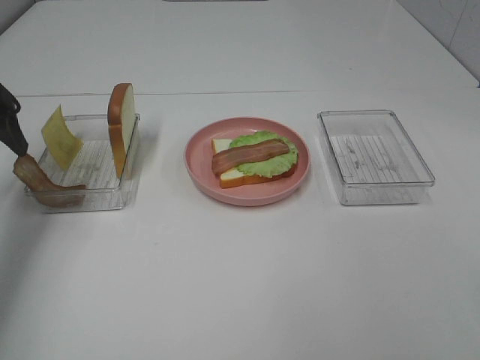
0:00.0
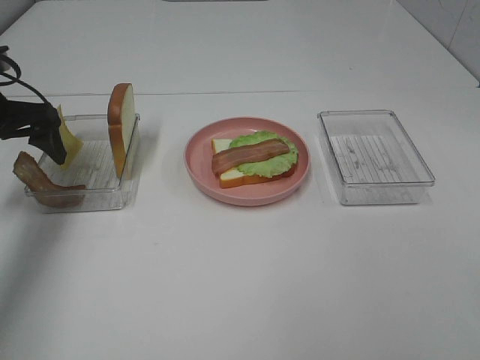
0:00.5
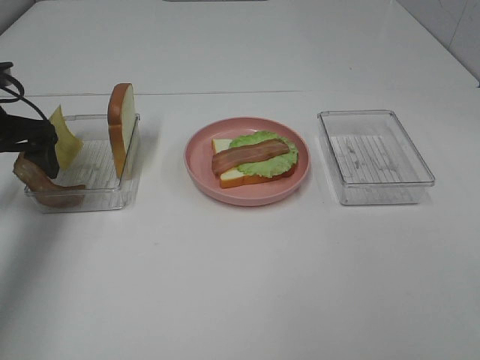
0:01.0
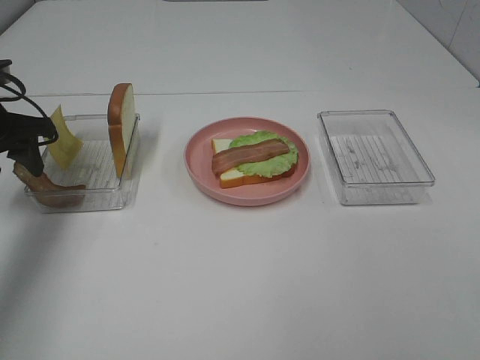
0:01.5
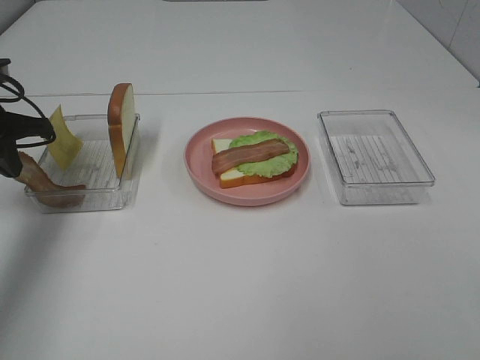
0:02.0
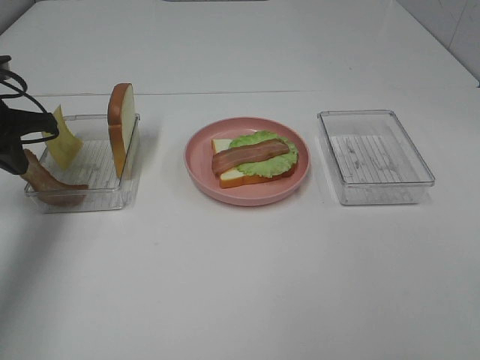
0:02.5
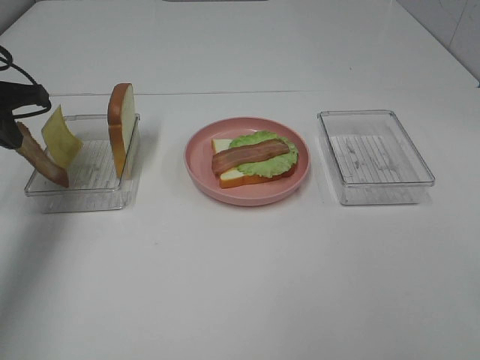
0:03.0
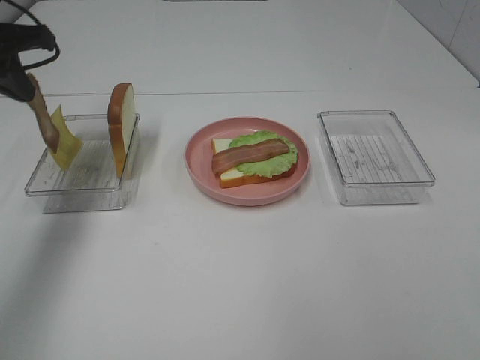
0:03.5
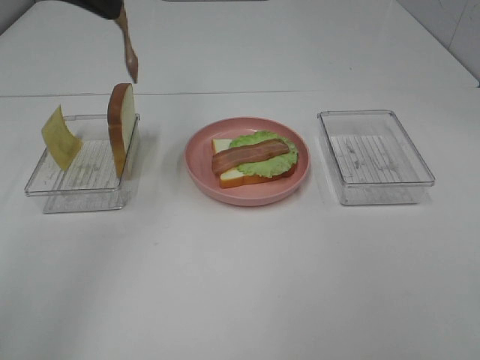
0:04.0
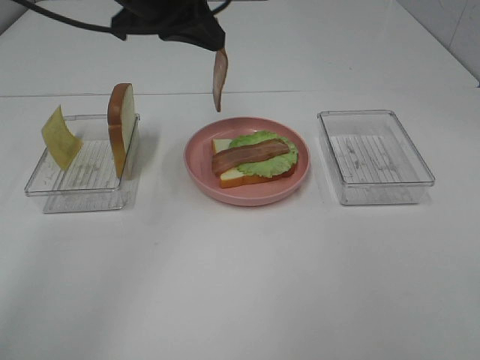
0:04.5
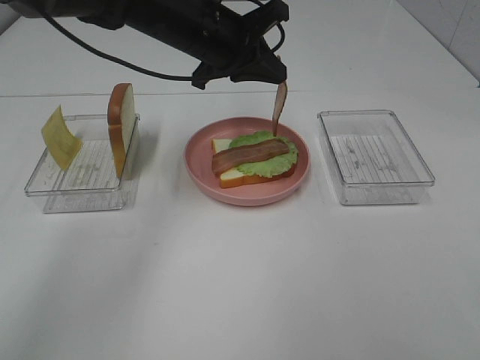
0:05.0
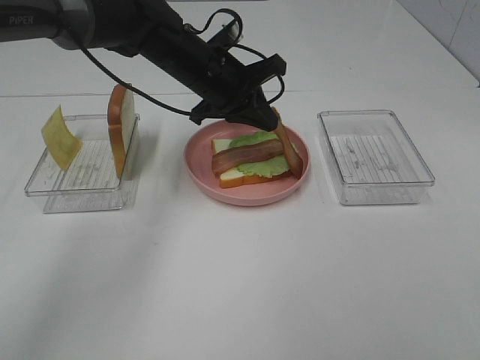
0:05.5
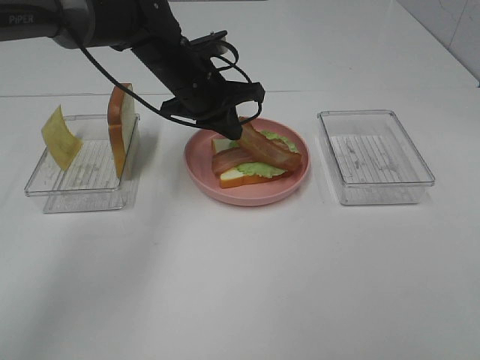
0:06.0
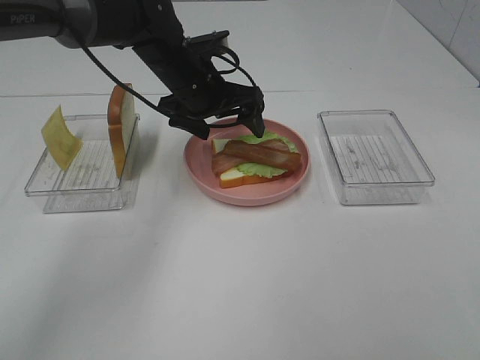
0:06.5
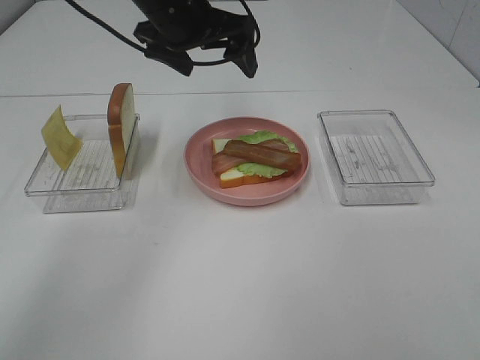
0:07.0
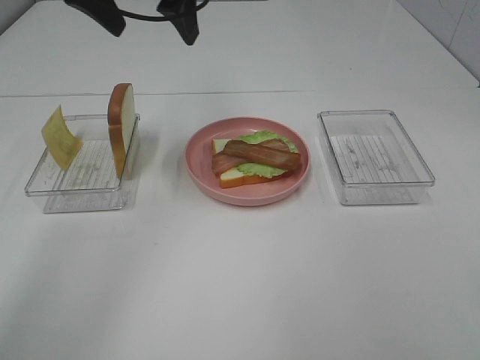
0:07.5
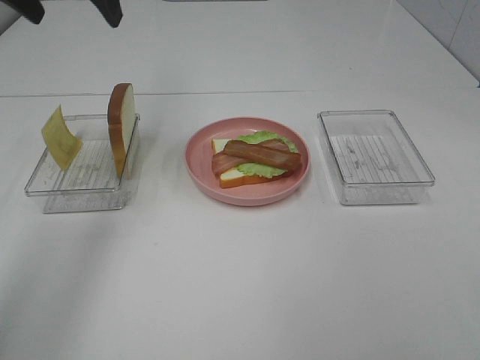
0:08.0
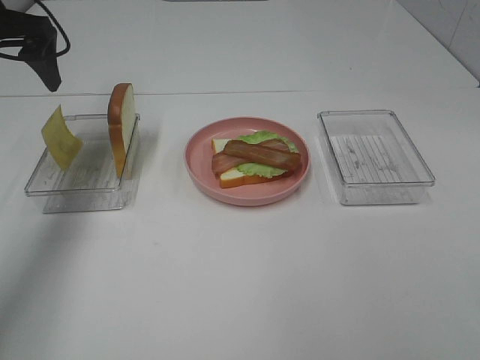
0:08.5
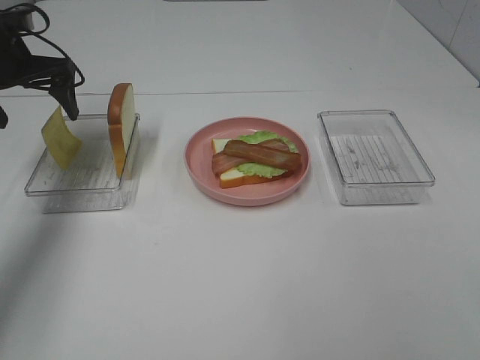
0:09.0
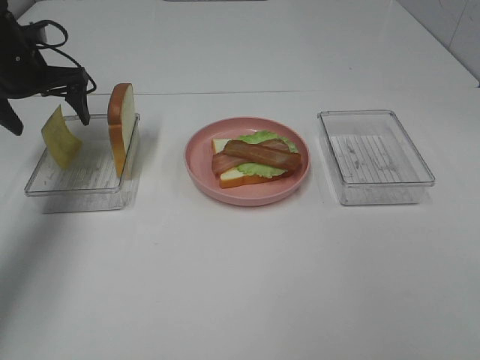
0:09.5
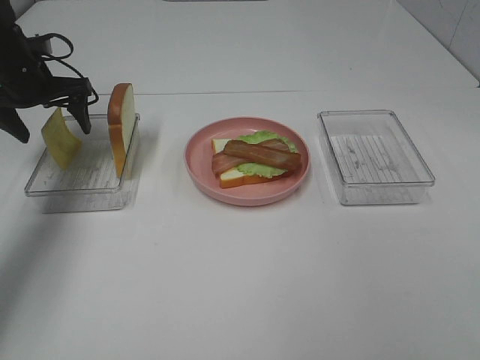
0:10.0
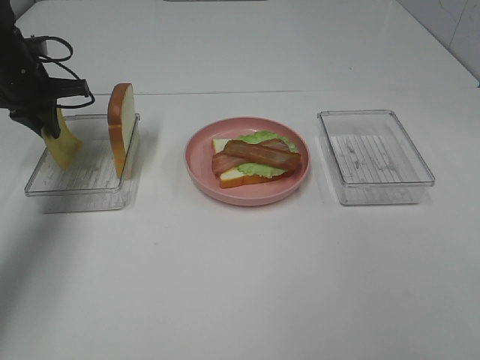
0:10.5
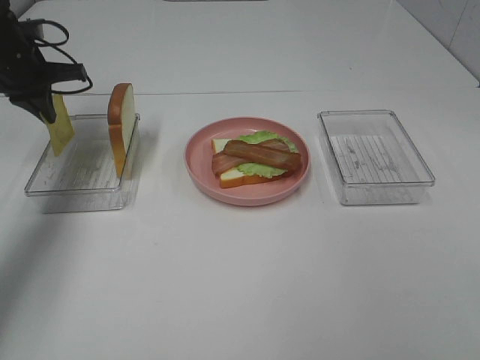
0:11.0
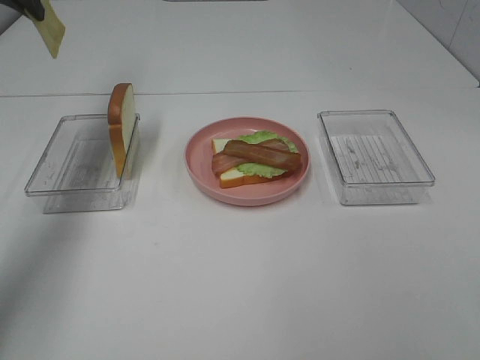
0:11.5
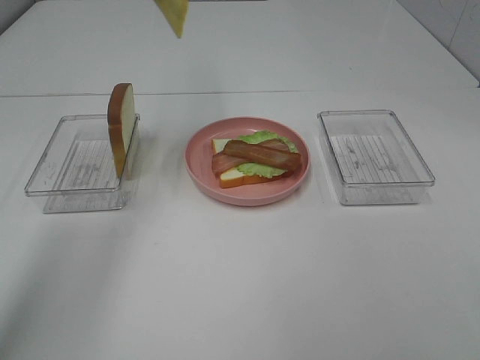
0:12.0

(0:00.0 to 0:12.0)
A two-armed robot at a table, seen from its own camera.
Task of the whole recording: Make sandwiches.
Step, 0:00.0 - 0:02.0: Left hand:grab the bacon.
Step, 0:02.5 - 0:06.5: Left hand:place bacon on bacon.
Step, 0:07.0 - 0:10.5: Left hand:grab the bacon.
0:00.0 - 0:02.0: The left gripper changes place by roughly 5 cm, and closes up.
0:02.0 - 0:04.0: The left gripper moves upward and to the right, some 25 cm.
0:04.0 - 0:06.0: The left gripper travels downward, to the right and forward by roughly 25 cm.
0:06.0 - 0:08.0: The left gripper moves upward and to the left, approximately 25 cm, and opens its fingers.
0:08.0 - 0:10.0: The left gripper heads downward and to the left, covering some 20 cm.
0:10.0 - 0:12.0: The left gripper moves upward and to the right, approximately 25 cm, and closes.

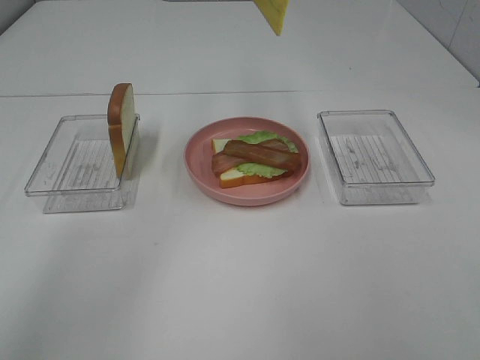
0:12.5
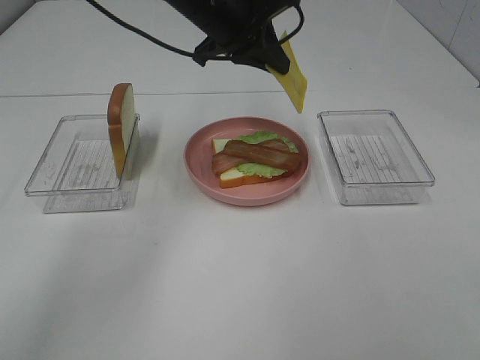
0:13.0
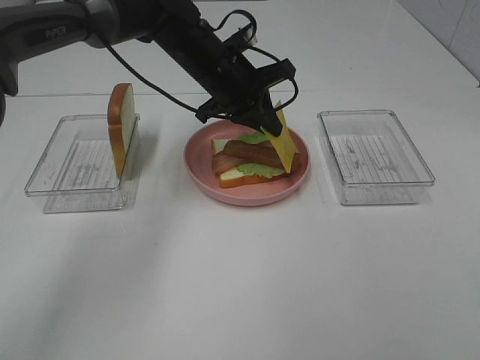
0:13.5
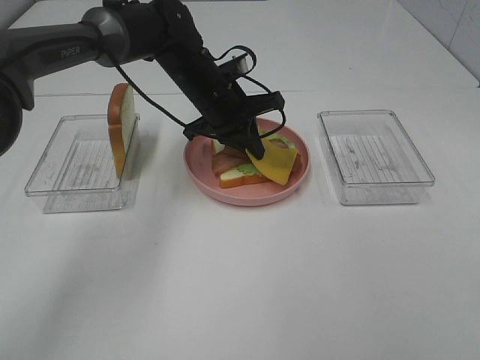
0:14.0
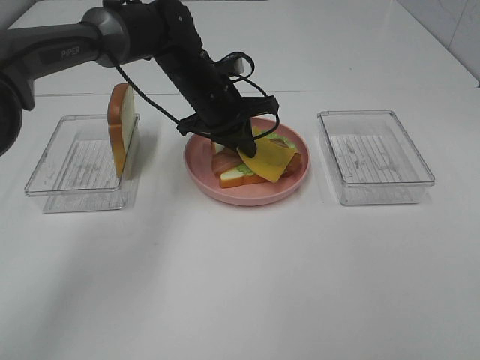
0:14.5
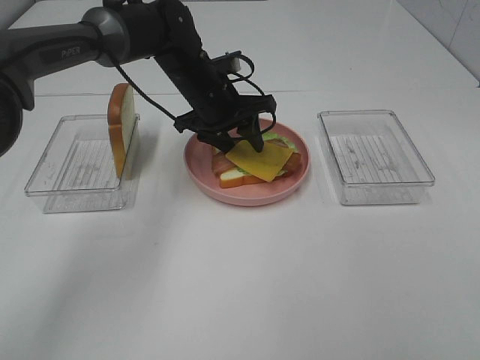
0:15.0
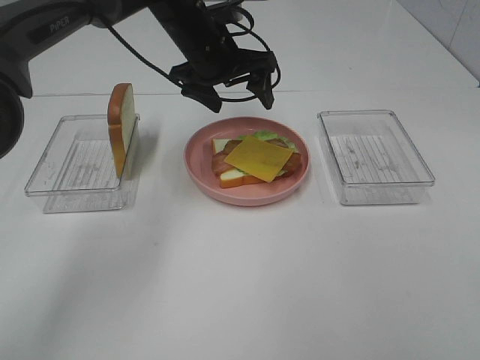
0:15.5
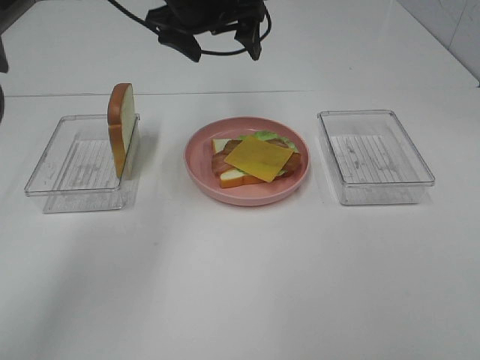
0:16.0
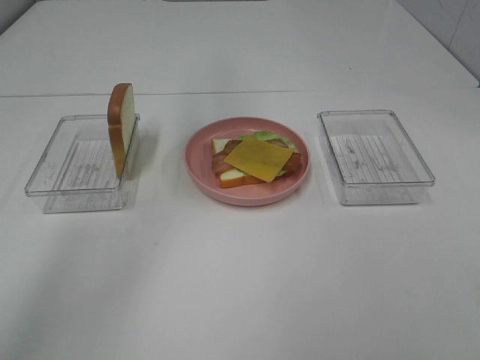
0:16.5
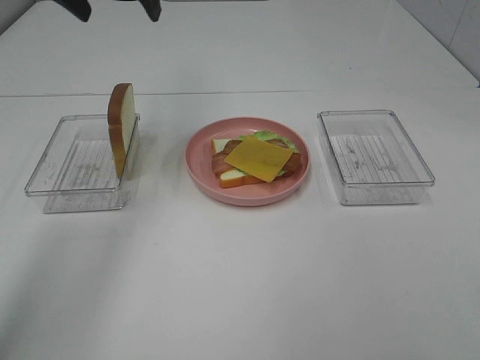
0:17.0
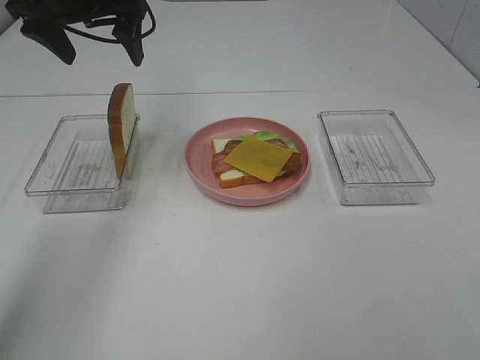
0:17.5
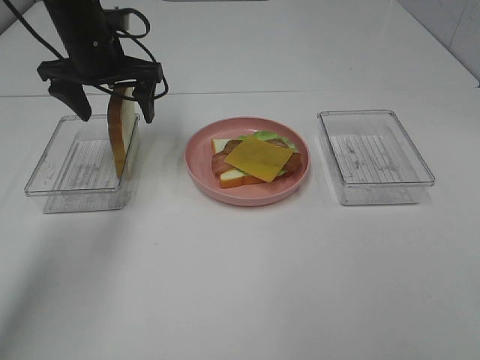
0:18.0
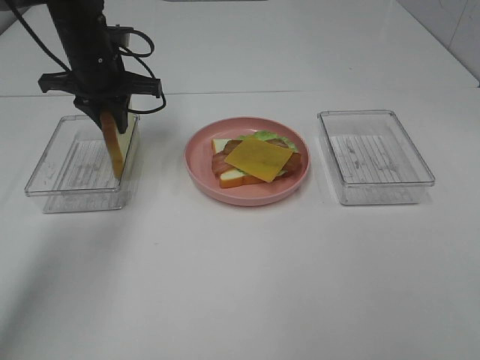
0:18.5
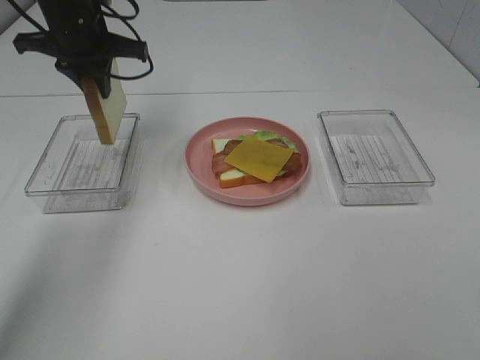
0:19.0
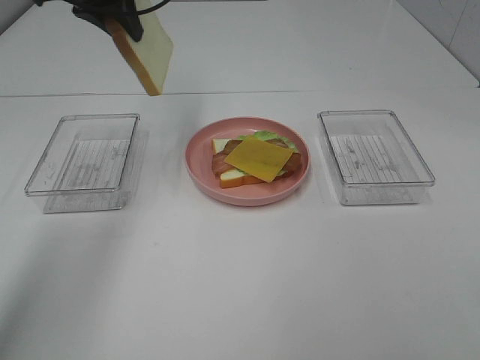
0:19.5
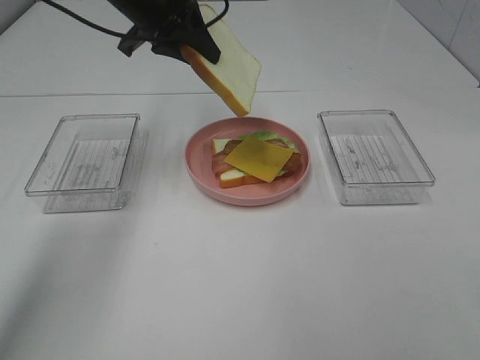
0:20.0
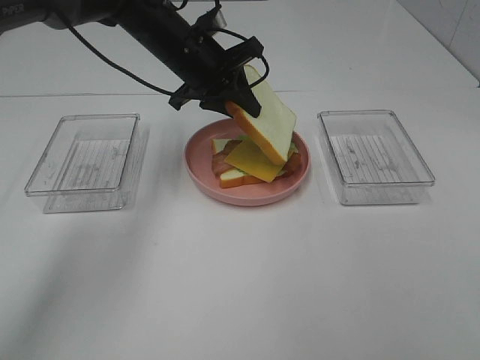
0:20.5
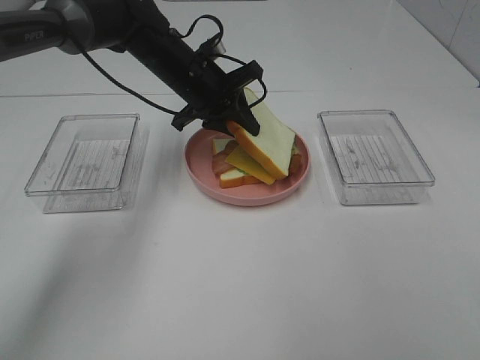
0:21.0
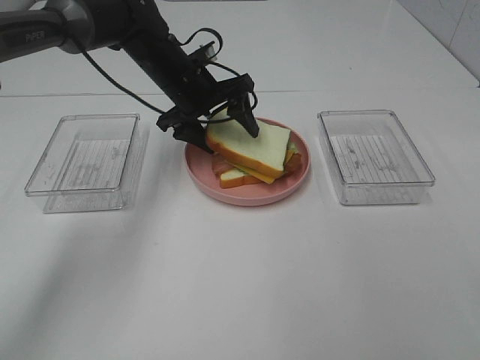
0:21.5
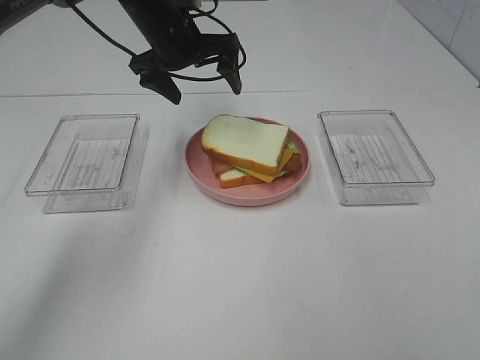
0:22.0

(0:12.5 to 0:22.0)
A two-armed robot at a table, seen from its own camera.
Task of the whole recording: Make sandwiches.
Step, 0:12.5 - 0:15.0: Left hand:place bacon on lettuce slice.
Step, 0:15.5 - 0:18.5: Left hand:grab the bread slice.
Step, 0:19.0 - 0:21.5: Left hand:place bacon on bacon.
0:12.5 - 0:14.5: The left gripper goes about 20 cm downward.
0:14.5 - 0:16.5: The left gripper moves upward, approximately 20 cm, and opens its fingers.
0:16.5 - 0:18.0: The left gripper goes roughly 15 cm downward and to the left.
0:18.0 - 0:20.0: The left gripper shifts approximately 10 cm to the right and upward, and closes up.
0:20.0 - 0:22.0: The left gripper opens its fingers.

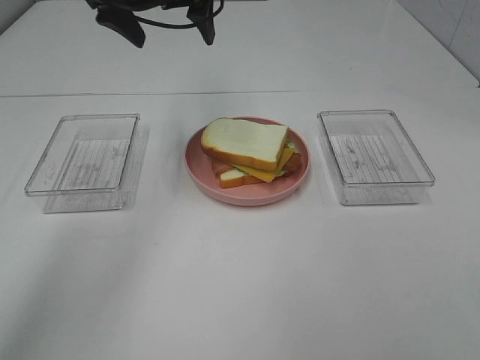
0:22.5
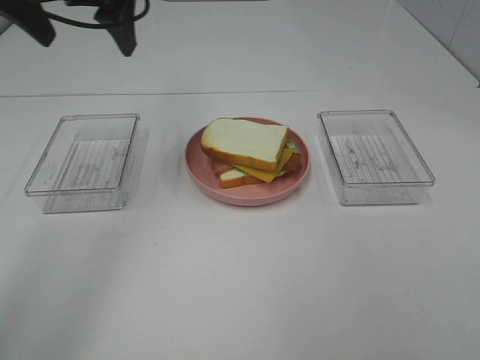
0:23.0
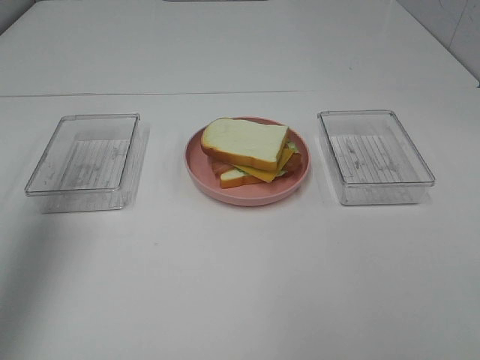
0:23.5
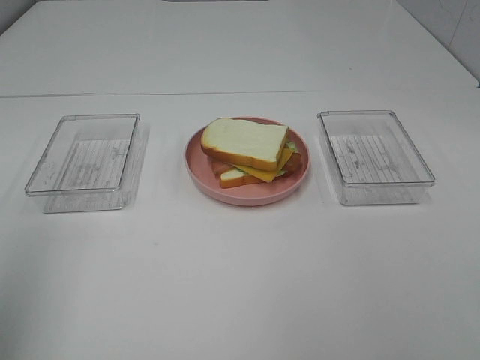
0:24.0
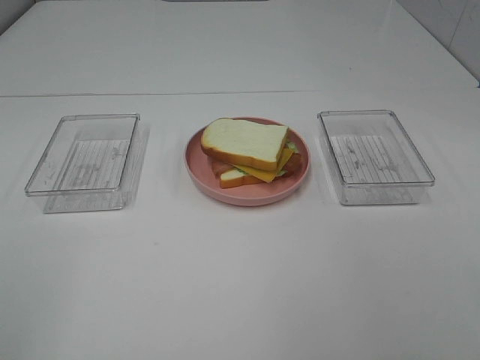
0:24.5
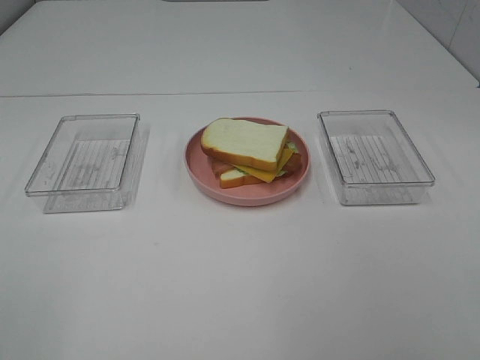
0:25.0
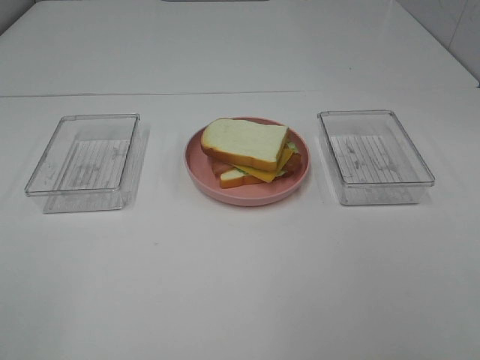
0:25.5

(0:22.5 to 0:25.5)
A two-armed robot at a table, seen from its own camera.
Task of the whole recording: Make sandwiches.
0:22.5 - 0:24.0: The left gripper moves backward and to the left, about 40 cm.

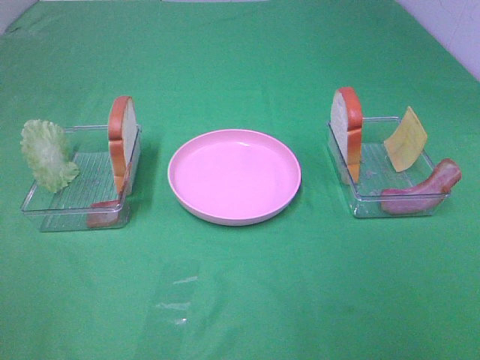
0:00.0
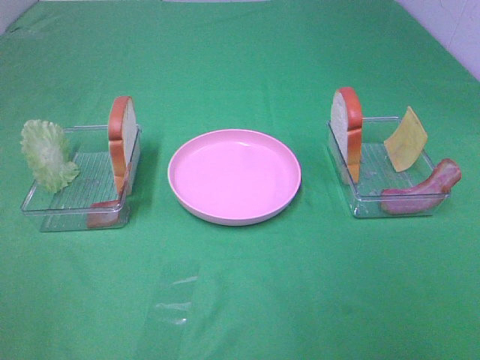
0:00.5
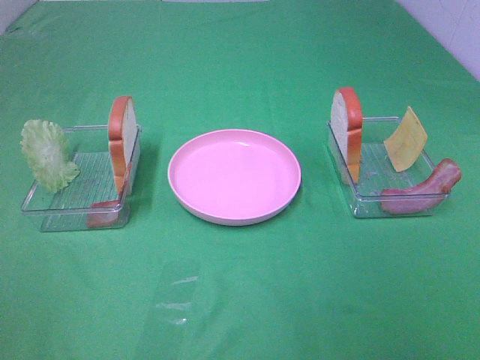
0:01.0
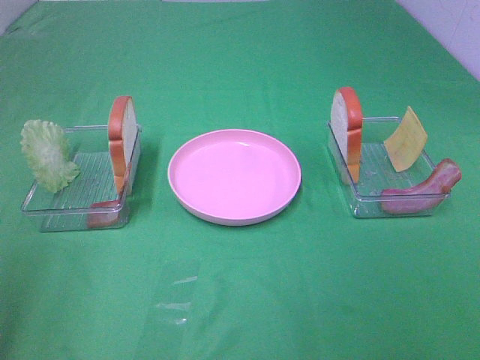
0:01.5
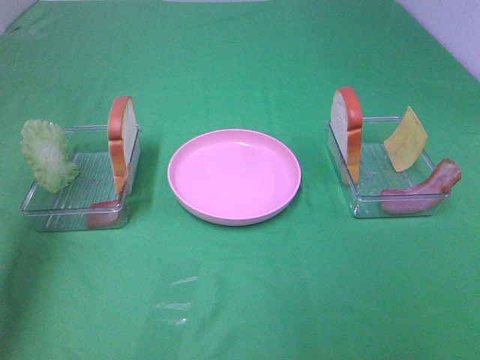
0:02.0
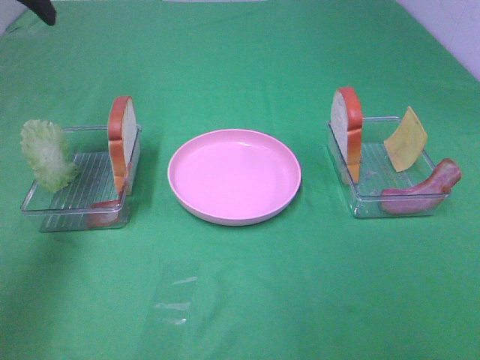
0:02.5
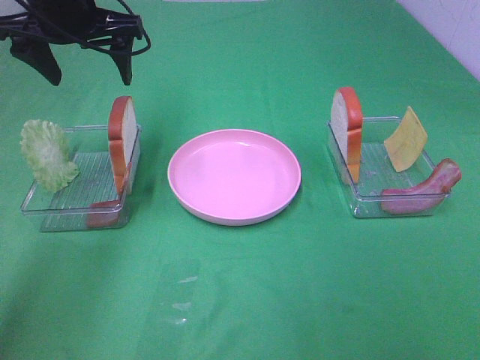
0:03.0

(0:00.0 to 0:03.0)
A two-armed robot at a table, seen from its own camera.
Task of the whole recording: Make sandwiches.
0:01.5 - 0:03.0: The left gripper moves forward, about 35 cm.
